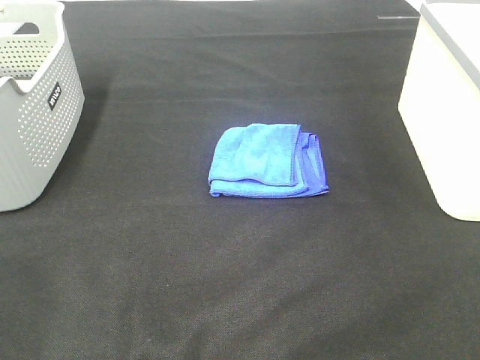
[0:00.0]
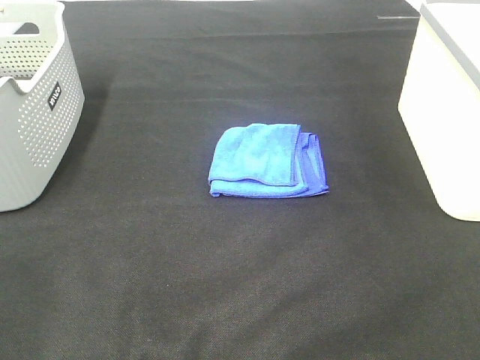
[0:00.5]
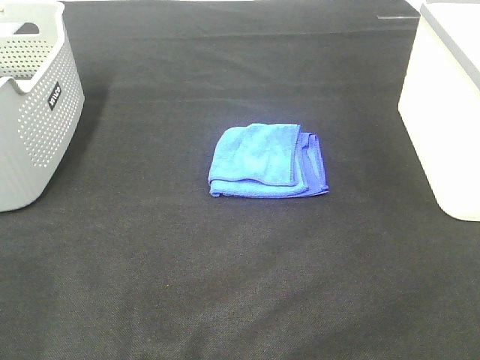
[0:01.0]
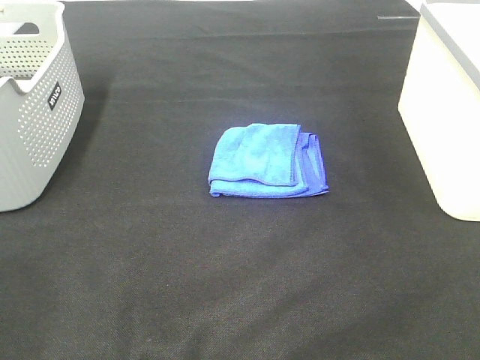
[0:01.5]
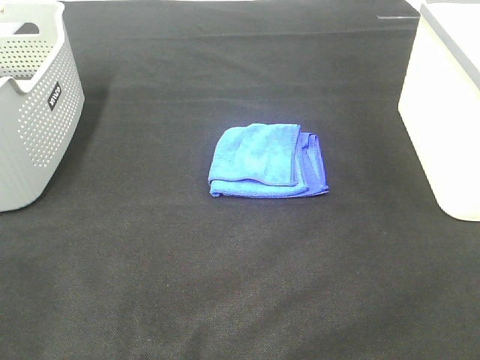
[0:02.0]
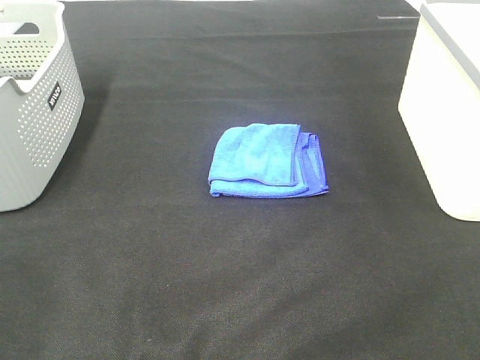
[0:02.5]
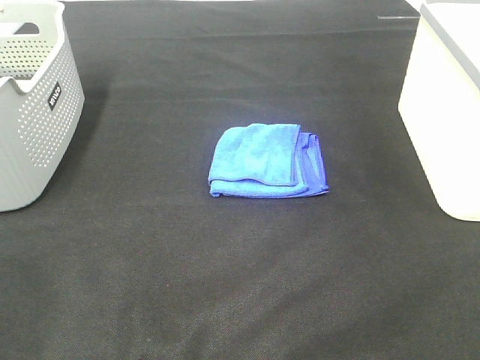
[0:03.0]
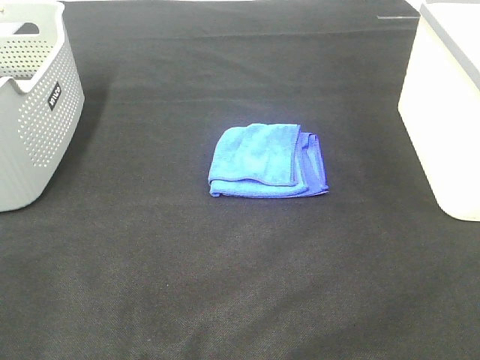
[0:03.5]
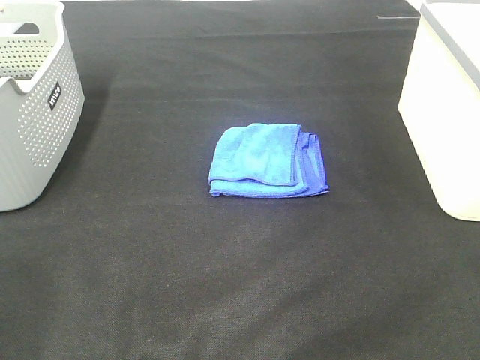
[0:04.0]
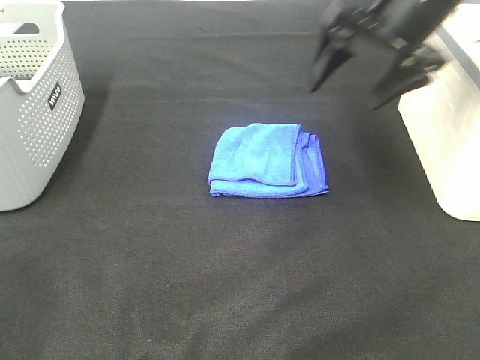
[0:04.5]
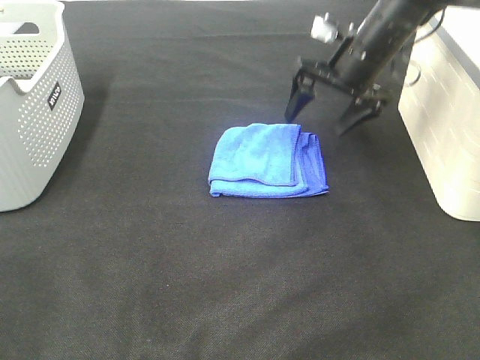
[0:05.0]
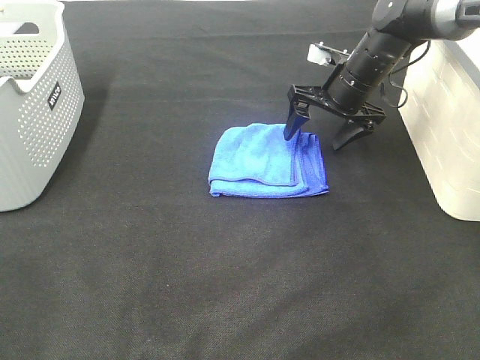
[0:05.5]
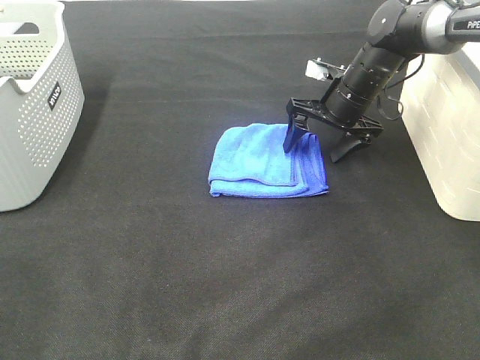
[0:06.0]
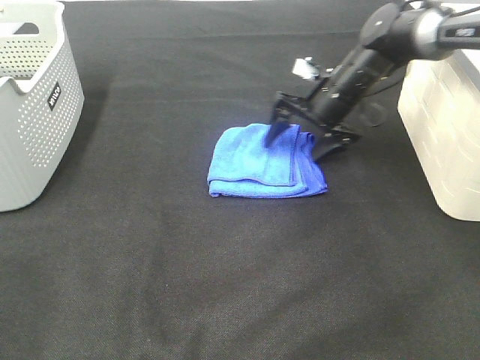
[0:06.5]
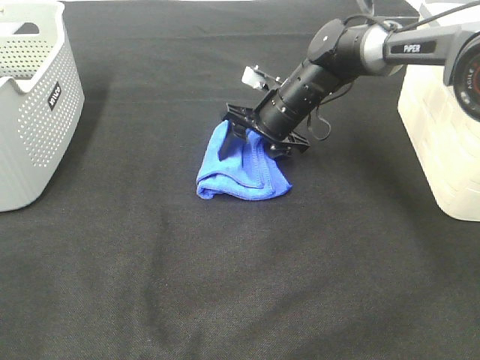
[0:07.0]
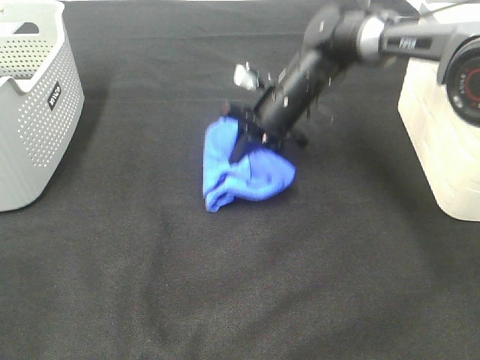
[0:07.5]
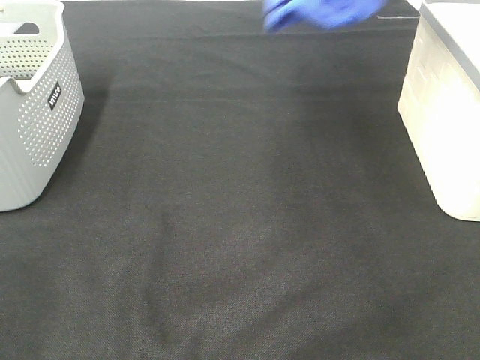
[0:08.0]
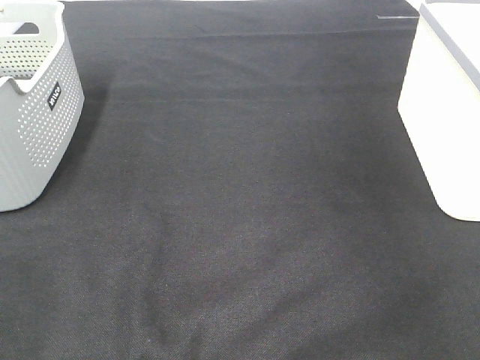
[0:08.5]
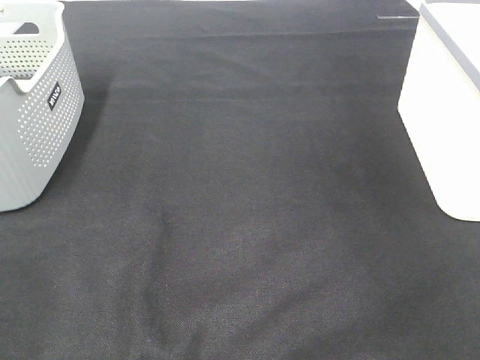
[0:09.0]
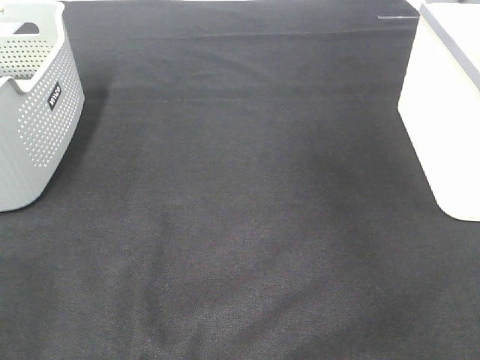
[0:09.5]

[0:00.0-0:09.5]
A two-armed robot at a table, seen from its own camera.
Step, 0:00.0 to 0:07.0: Right hand: grab the folded blue towel.
Step, 0:07.5 to 0:09.0: Right hand: place the blue towel in right basket.
0:00.0 to 0:02.0: Both grippers stay about where they are.
0:04.0 to 0:05.5: The right gripper moves forward, downward and to the left, roughly 35 cm.
0:05.5 to 0:07.5: The right gripper shifts about 10 cm to the left, and closes its fingers.
0:07.5 to 0:09.5: The right gripper heads to the right and upward, covering some 35 cm, and opens its fingers.

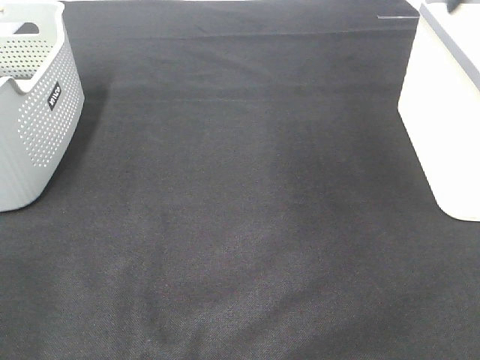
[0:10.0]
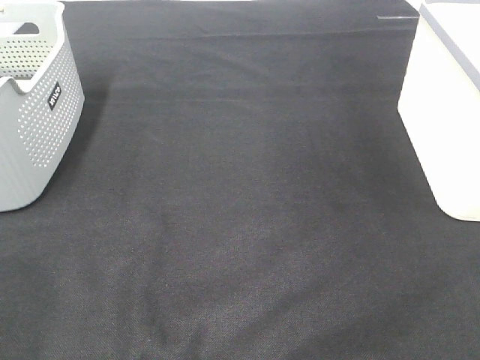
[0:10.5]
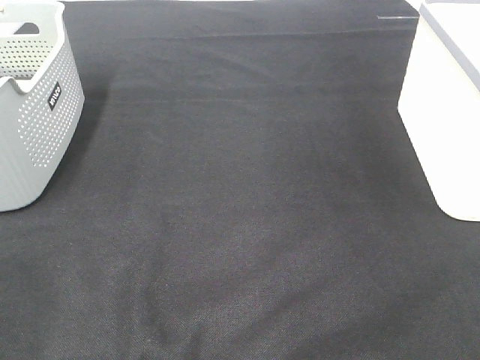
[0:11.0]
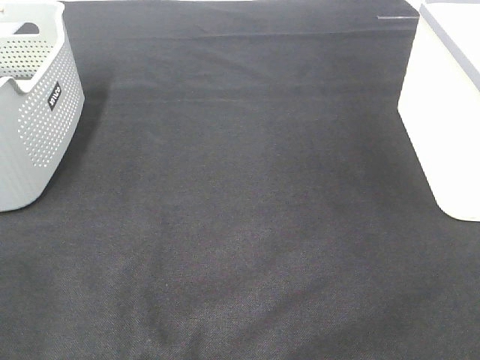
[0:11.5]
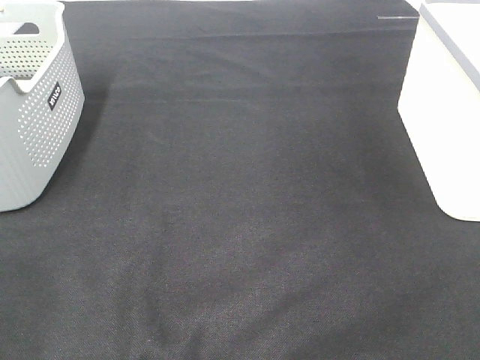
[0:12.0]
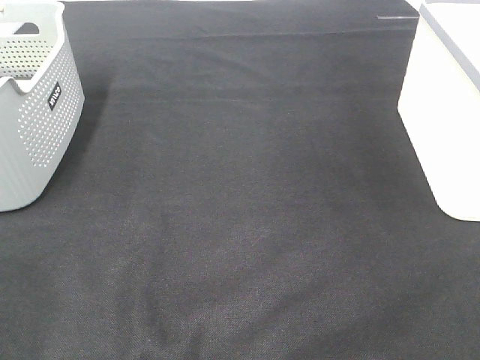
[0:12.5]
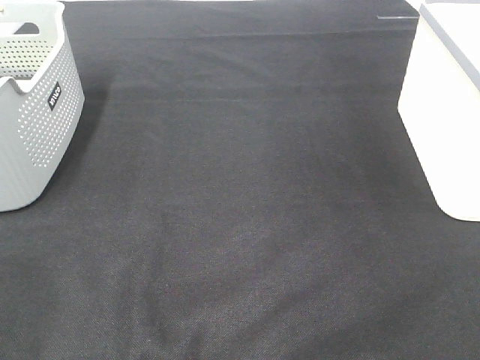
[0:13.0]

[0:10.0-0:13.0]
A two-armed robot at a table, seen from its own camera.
0:11.5 to 0:13.0: The two grippers keep their place.
